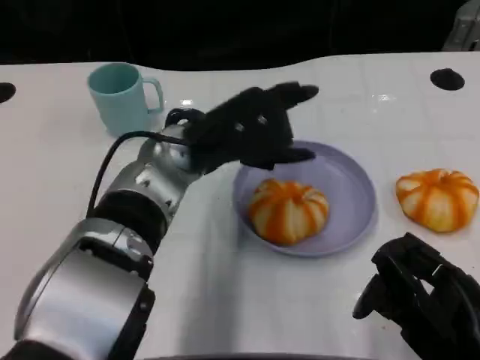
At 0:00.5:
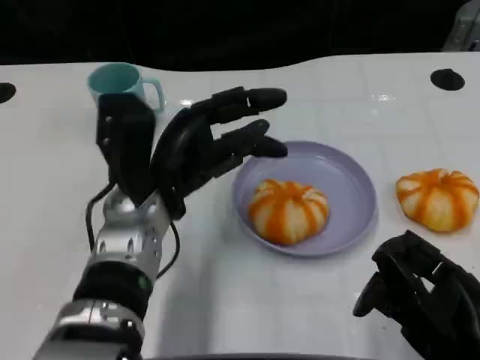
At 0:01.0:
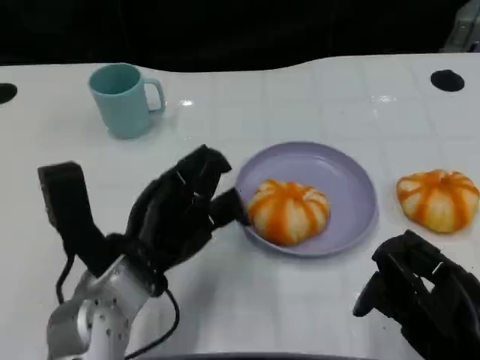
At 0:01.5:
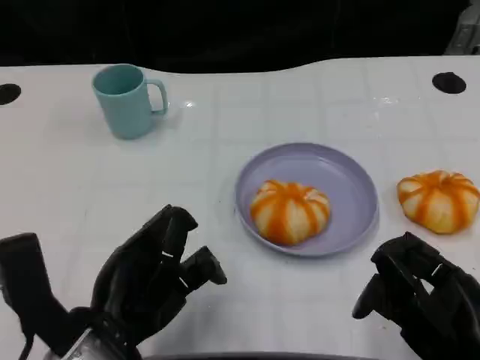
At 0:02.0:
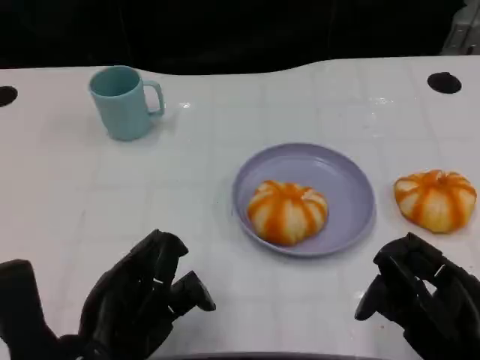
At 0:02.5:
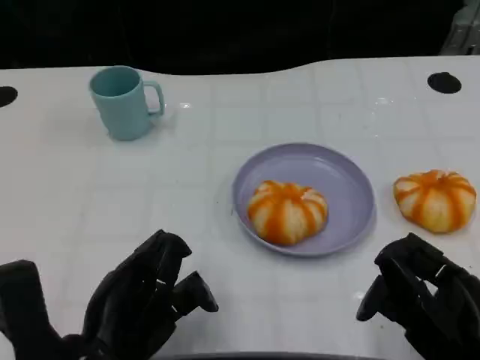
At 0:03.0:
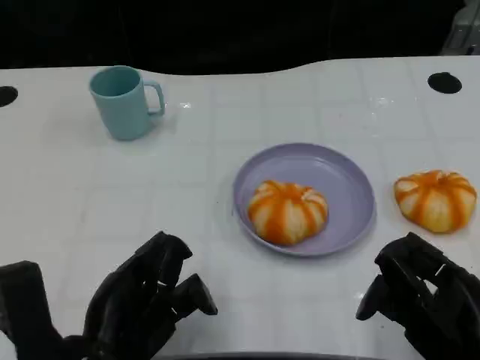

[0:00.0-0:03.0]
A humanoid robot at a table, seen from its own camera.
Task of the whole recording: Grasp the bread from the table and place it into the plate.
0:00.0 to 0:01.5: The left hand is displaced backward and to the left by approximately 20 cm.
0:01.5 to 0:03.0: The hands move only a little.

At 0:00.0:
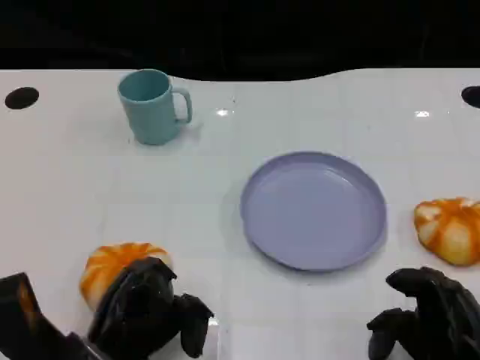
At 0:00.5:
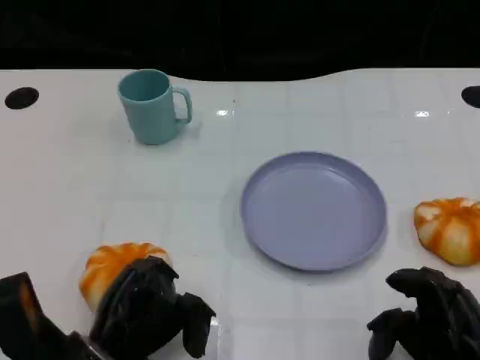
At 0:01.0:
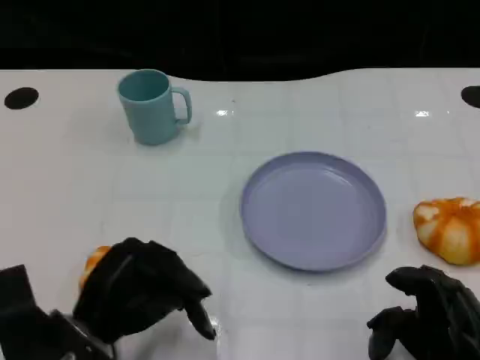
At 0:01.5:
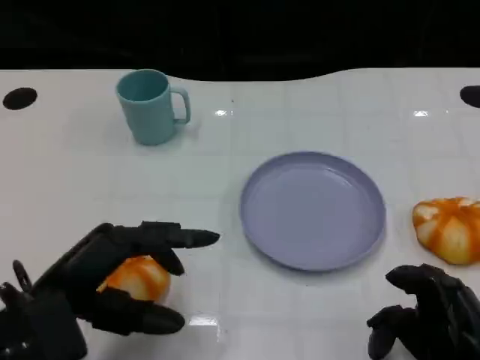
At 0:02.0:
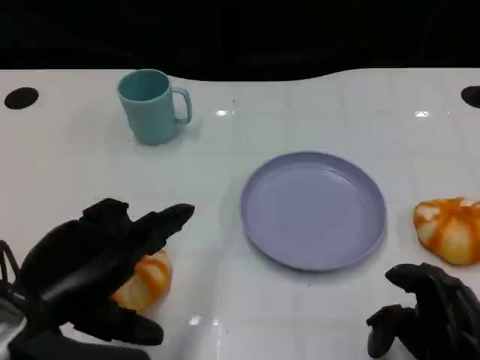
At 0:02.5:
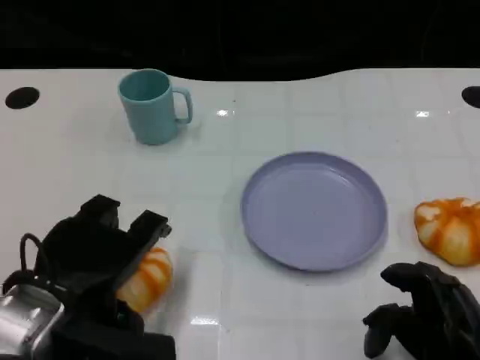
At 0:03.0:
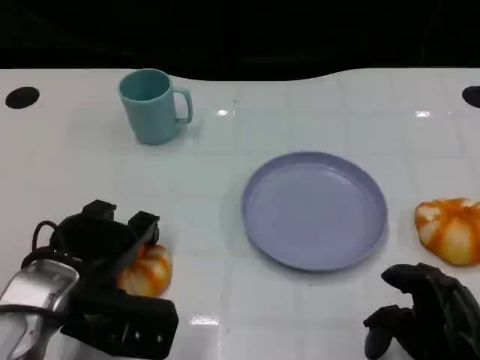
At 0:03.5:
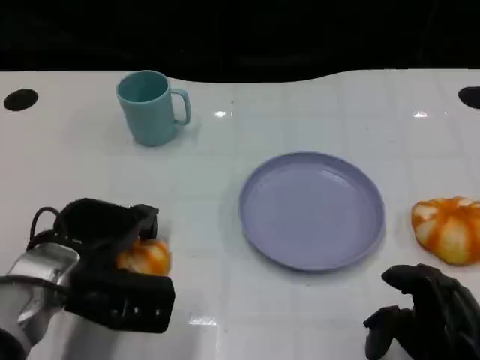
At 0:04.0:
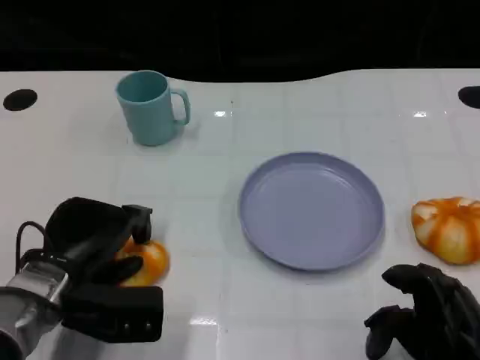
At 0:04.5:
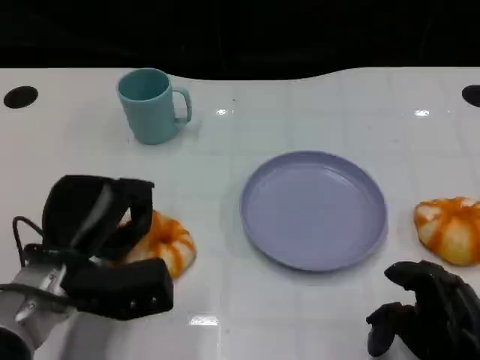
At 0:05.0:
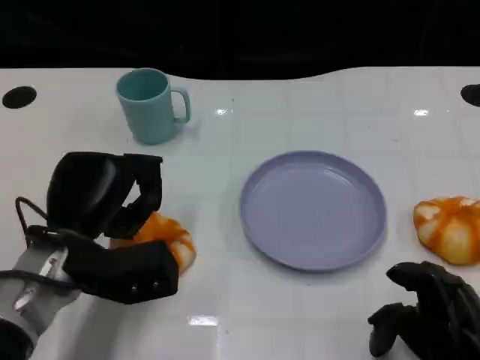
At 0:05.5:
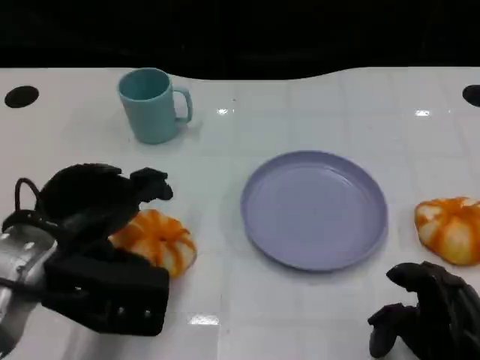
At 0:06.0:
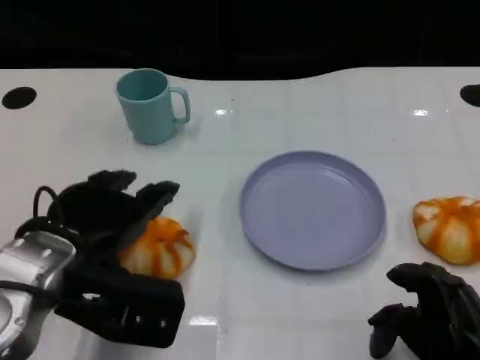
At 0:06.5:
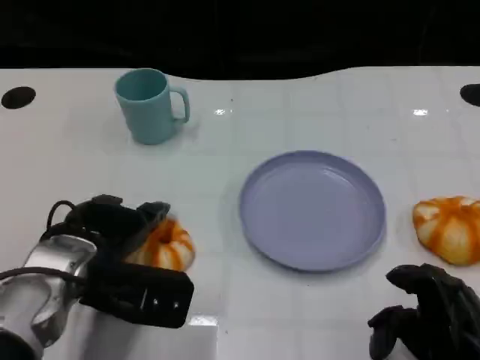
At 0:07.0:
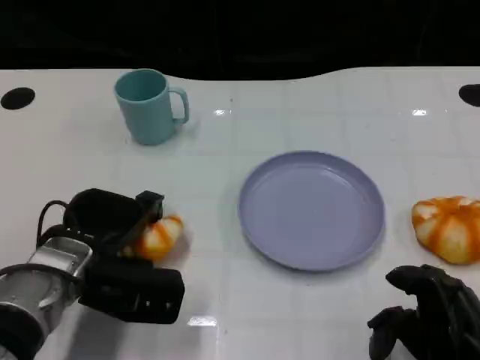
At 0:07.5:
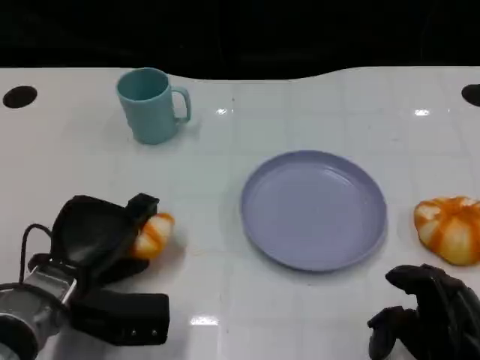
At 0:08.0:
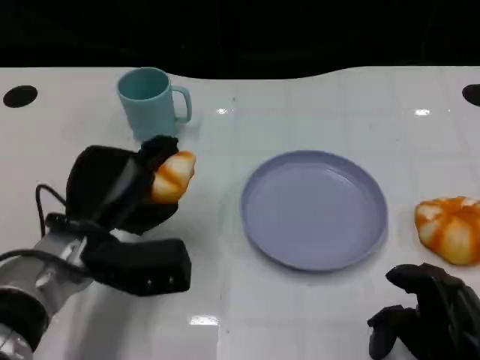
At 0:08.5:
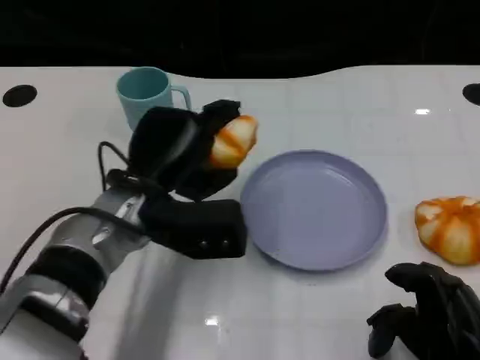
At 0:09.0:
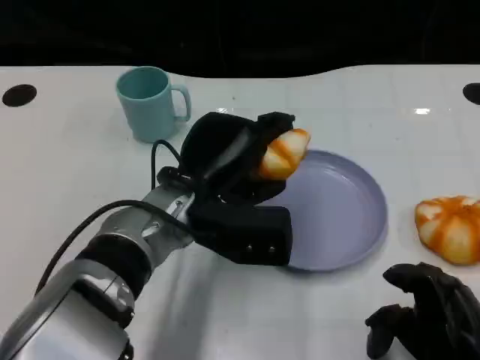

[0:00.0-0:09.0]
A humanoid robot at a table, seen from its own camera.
Task of the whole recording: Grasp the bread from the table and place it into the plate.
0:00.0 to 0:02.0: The left hand is displaced upward by about 10 cm.
0:02.0 to 0:04.5: The left hand shifts roughly 10 cm forward and downward.
0:04.5 to 0:07.0: The left hand travels upward and back again, roughly 10 cm each way.
0:07.0 to 0:09.0: The left hand is displaced to the right and upward by roughly 15 cm.

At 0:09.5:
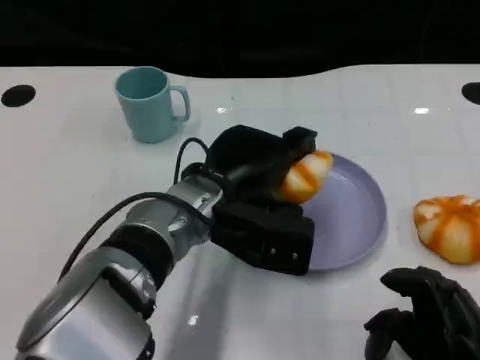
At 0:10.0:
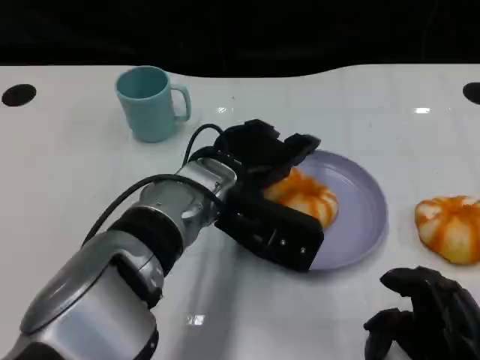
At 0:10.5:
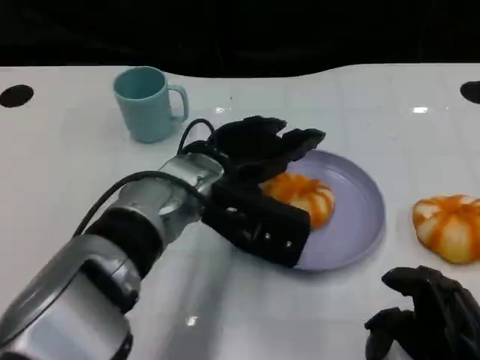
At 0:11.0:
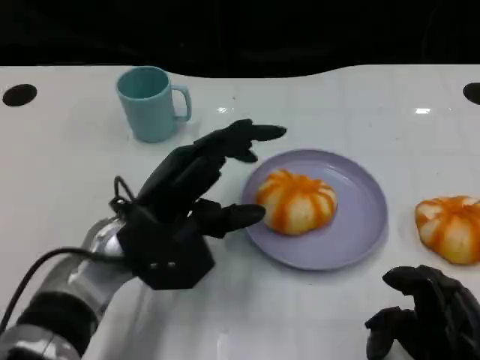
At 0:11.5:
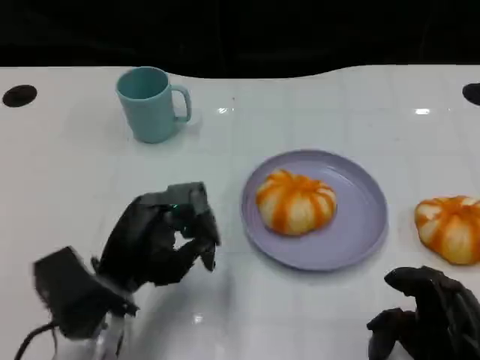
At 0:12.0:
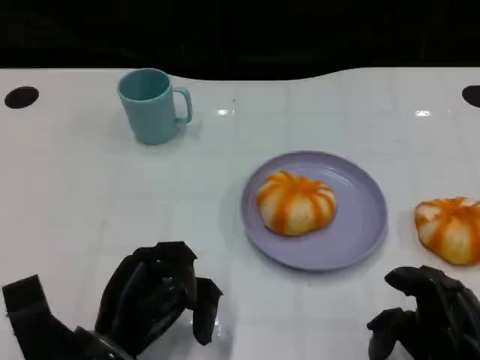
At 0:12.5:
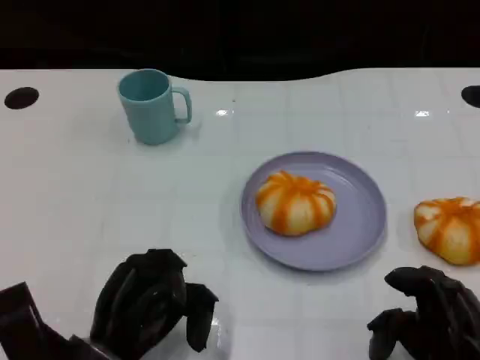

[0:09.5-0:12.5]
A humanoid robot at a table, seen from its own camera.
Task of the whole recording: Grasp the bread from the table and place it into the plate.
0:09.5 to 0:11.0: The left hand moves to the left, roughly 10 cm.
0:11.0 to 0:12.5: The left hand moves backward and downward, about 10 cm.

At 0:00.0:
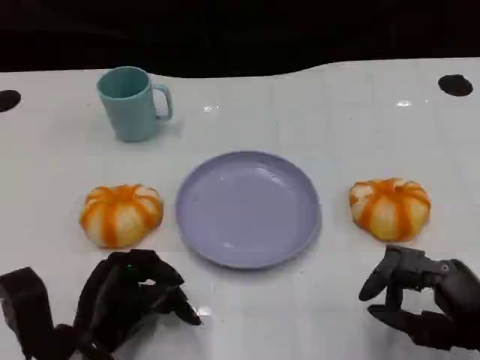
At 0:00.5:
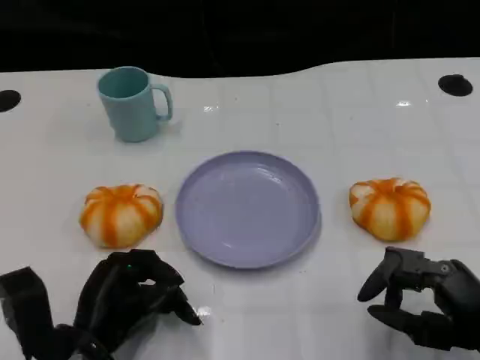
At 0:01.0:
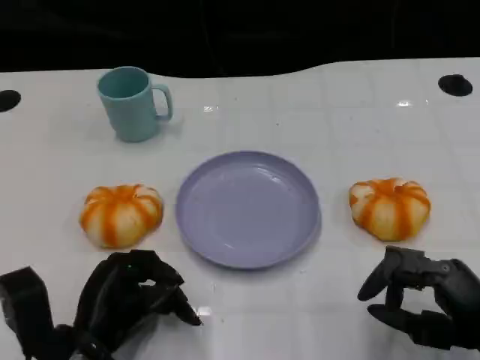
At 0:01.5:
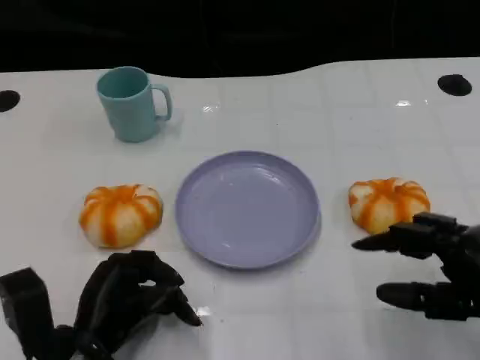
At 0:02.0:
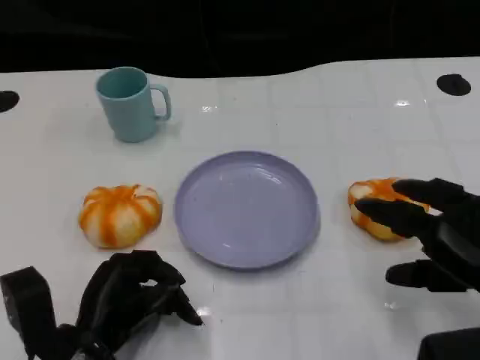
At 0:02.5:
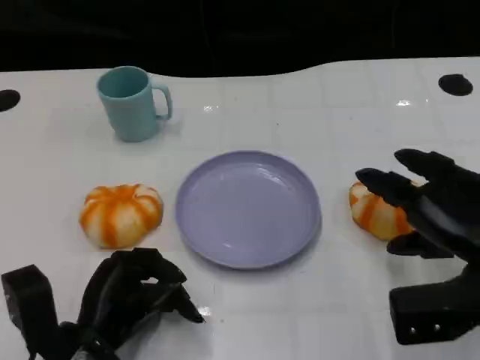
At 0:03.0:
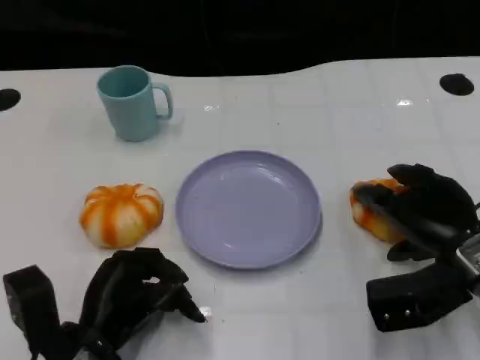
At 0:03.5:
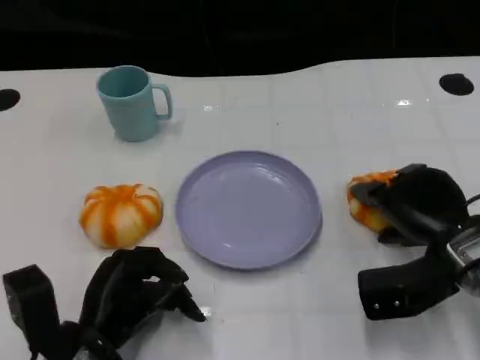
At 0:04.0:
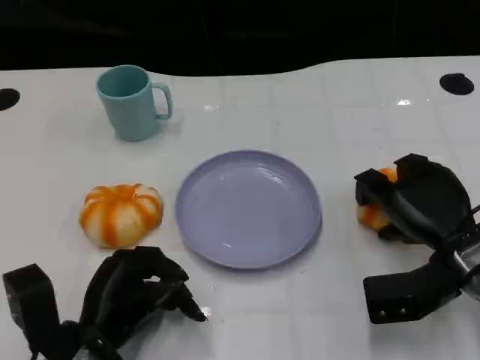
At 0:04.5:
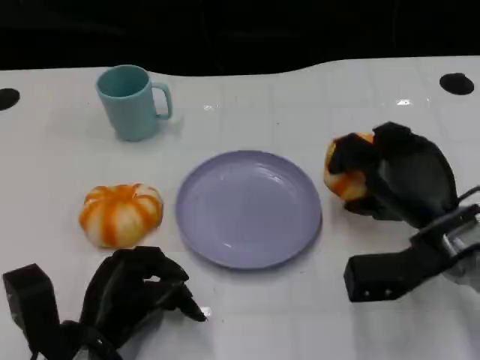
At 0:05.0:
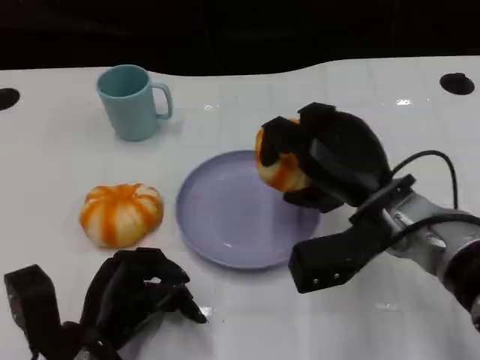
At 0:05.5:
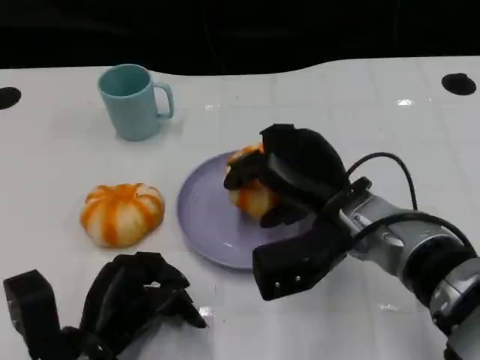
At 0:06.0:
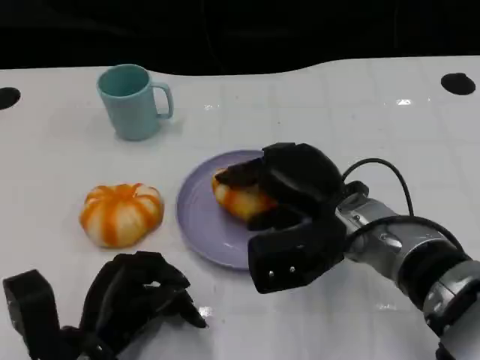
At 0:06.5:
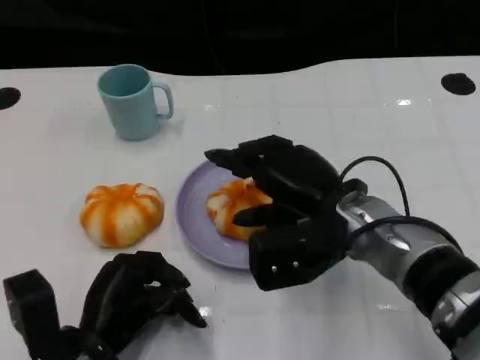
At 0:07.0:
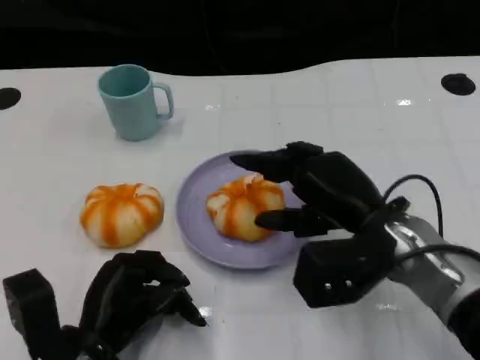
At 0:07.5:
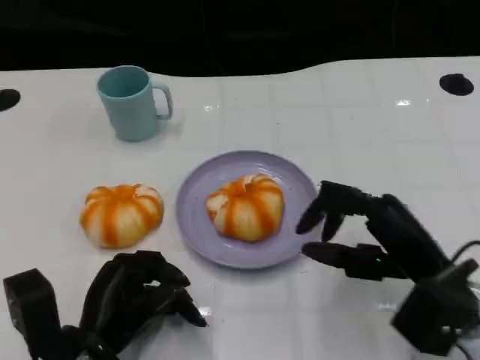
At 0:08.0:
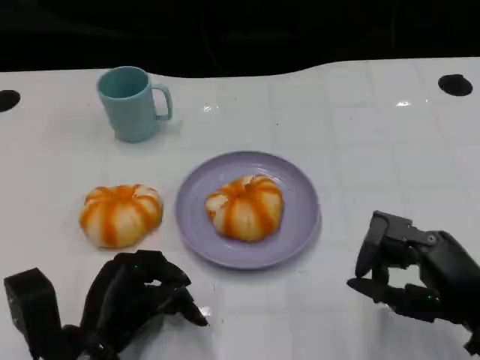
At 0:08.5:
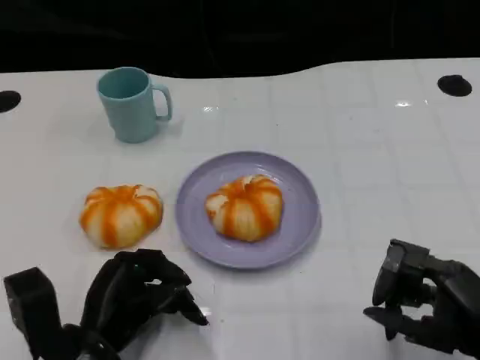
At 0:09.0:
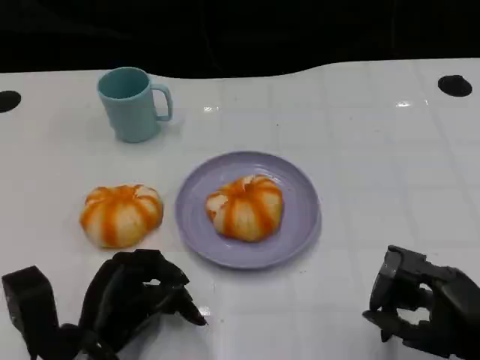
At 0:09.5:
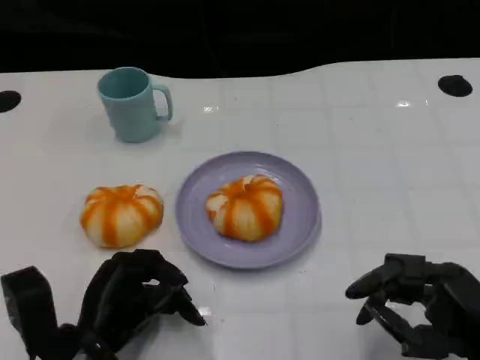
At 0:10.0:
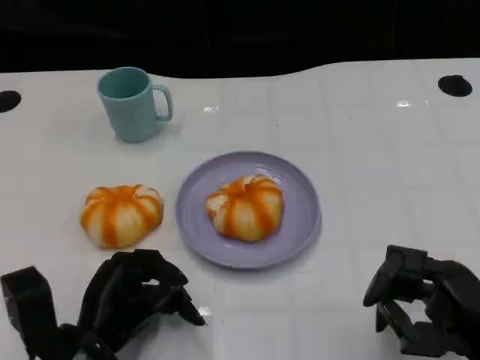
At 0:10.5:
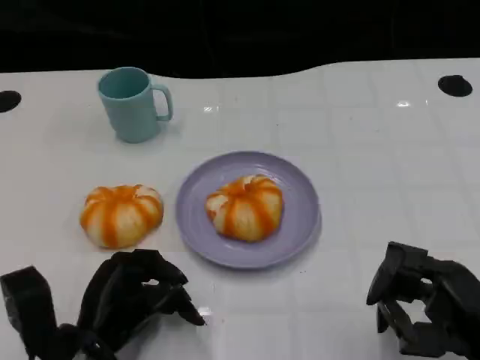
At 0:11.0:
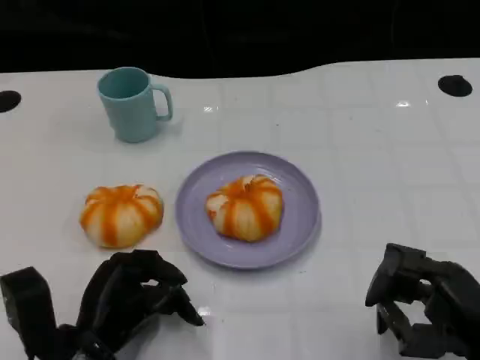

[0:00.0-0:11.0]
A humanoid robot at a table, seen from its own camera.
Task of the whole recording: Grasp the bread from the table and place it into the plate.
0:00.0 to 0:02.0: The right hand shifts approximately 5 cm upward.
0:02.0 to 0:03.5: The right hand travels forward by roughly 10 cm.
0:03.5 to 0:05.5: The right hand is displaced to the left by roughly 10 cm.
0:05.5 to 0:07.5: The right hand moves to the right and backward, approximately 10 cm.
0:07.5 to 0:09.0: The right hand shifts approximately 10 cm backward and to the right.
0:09.0 to 0:11.0: There are only small adjustments of the hands.
